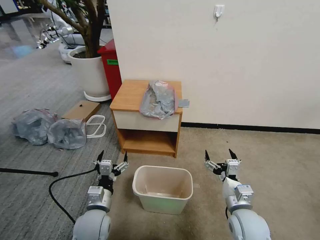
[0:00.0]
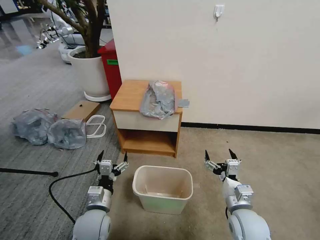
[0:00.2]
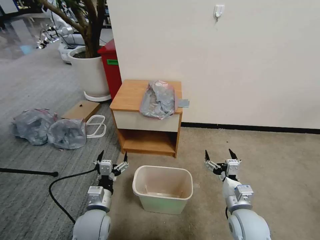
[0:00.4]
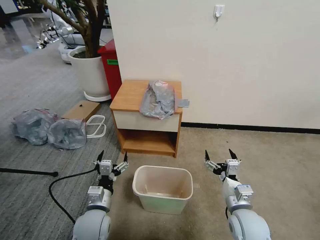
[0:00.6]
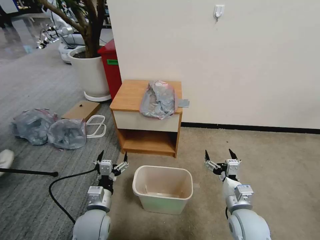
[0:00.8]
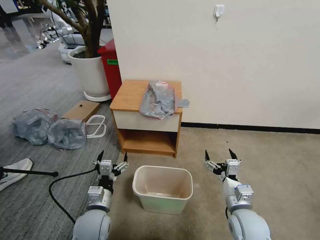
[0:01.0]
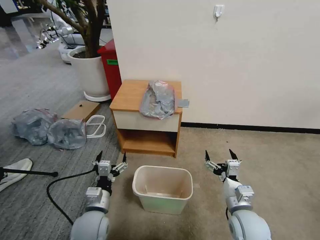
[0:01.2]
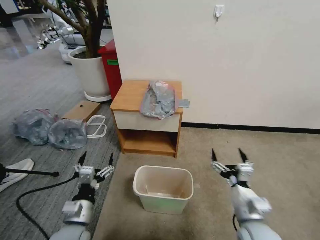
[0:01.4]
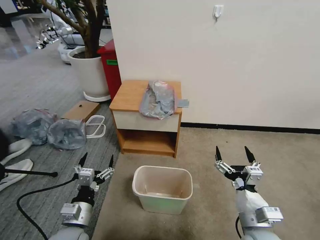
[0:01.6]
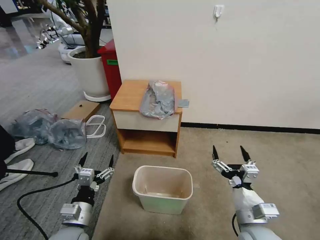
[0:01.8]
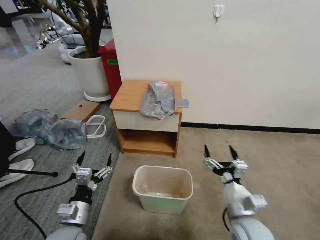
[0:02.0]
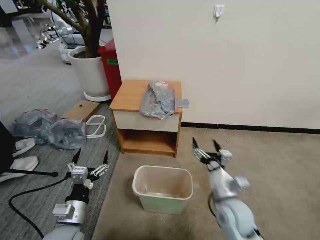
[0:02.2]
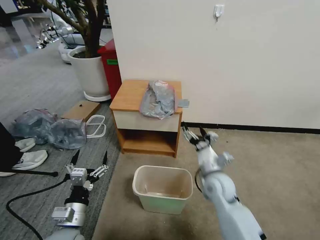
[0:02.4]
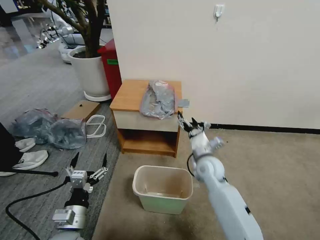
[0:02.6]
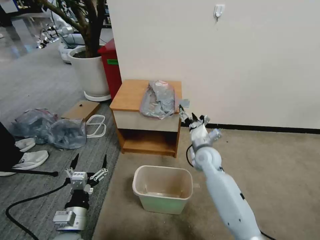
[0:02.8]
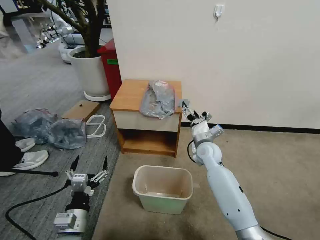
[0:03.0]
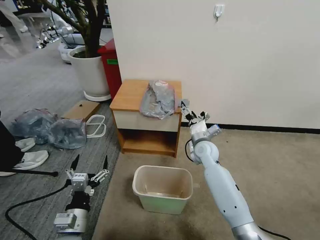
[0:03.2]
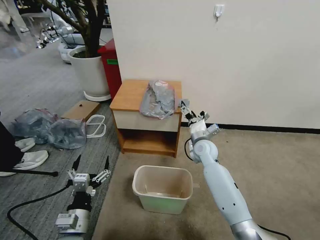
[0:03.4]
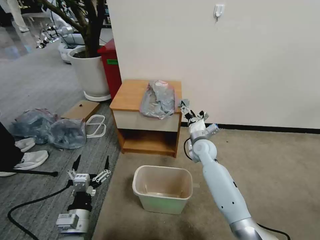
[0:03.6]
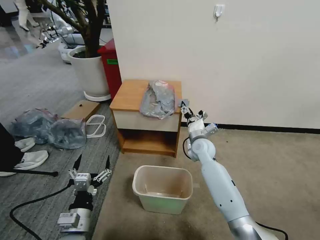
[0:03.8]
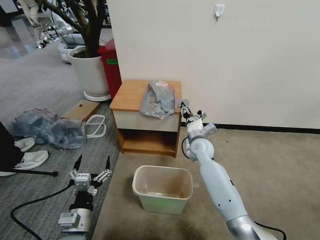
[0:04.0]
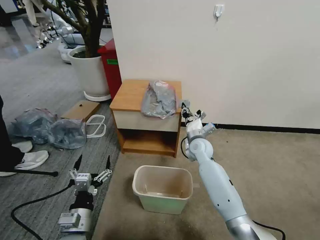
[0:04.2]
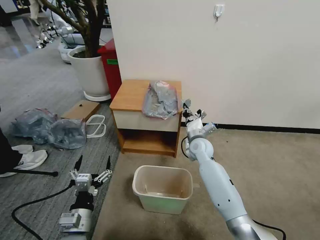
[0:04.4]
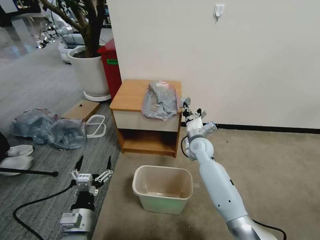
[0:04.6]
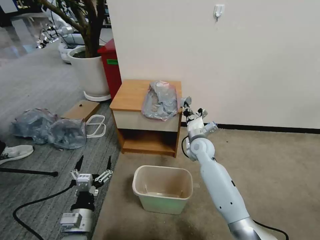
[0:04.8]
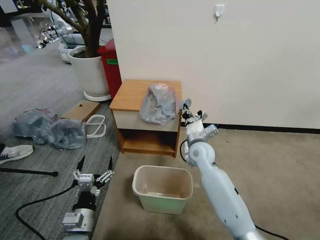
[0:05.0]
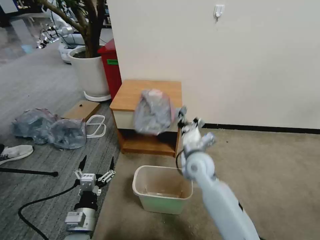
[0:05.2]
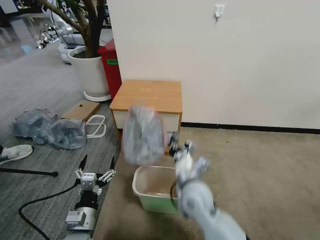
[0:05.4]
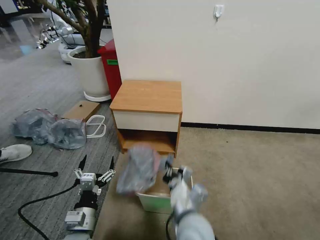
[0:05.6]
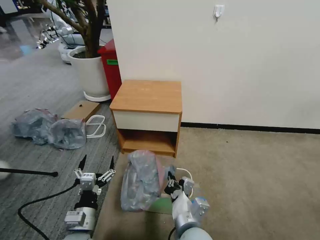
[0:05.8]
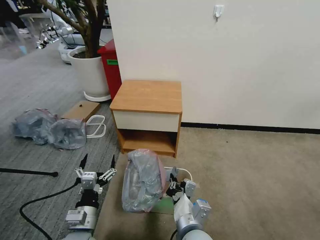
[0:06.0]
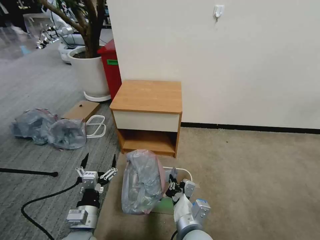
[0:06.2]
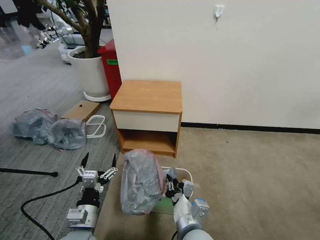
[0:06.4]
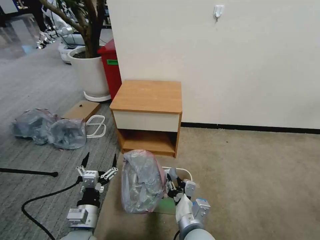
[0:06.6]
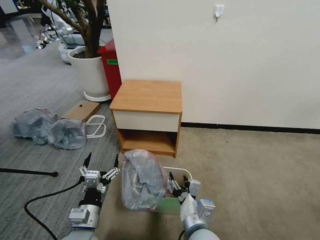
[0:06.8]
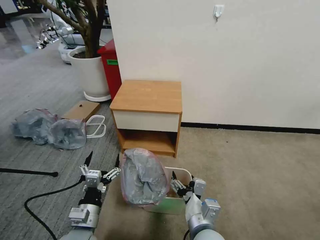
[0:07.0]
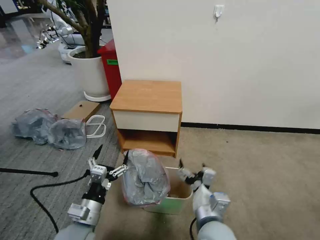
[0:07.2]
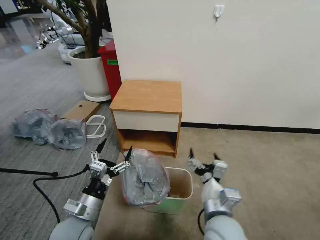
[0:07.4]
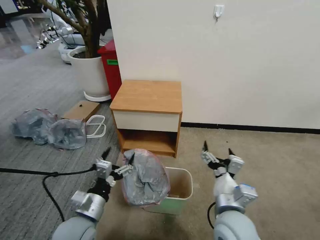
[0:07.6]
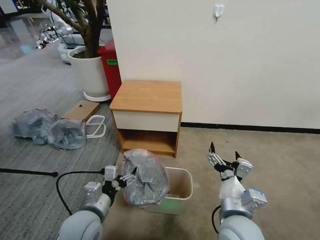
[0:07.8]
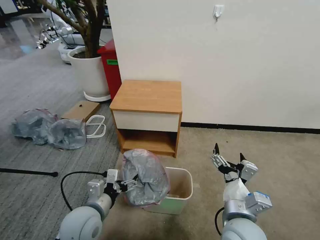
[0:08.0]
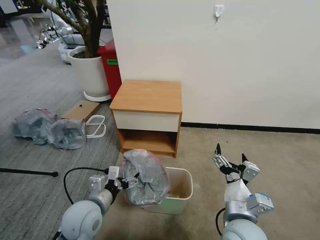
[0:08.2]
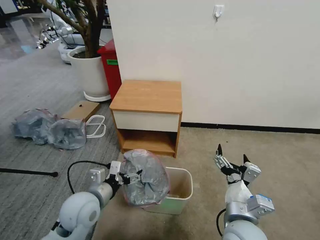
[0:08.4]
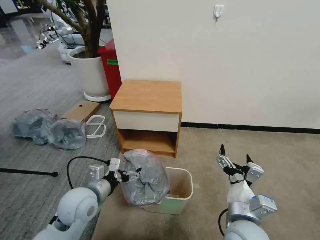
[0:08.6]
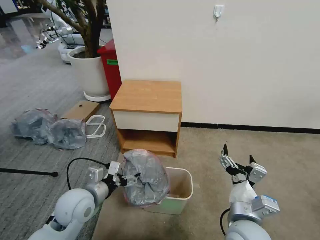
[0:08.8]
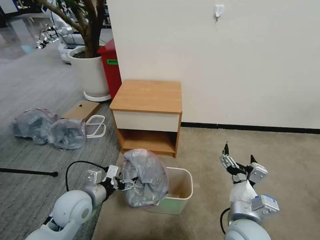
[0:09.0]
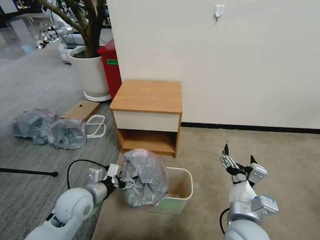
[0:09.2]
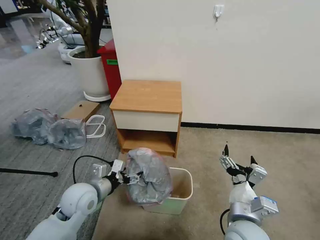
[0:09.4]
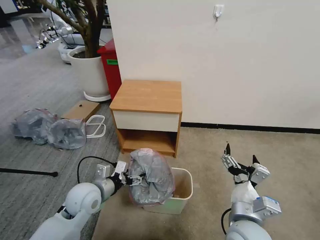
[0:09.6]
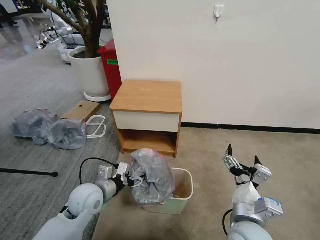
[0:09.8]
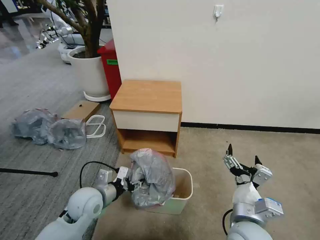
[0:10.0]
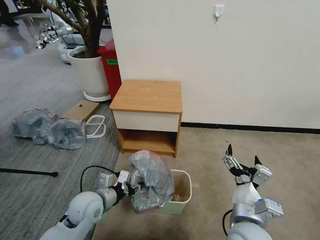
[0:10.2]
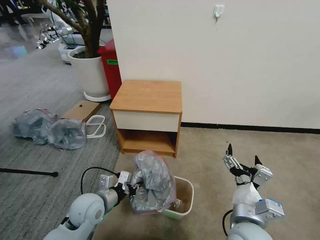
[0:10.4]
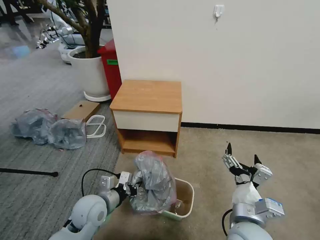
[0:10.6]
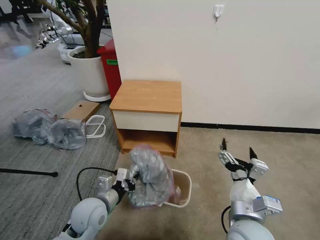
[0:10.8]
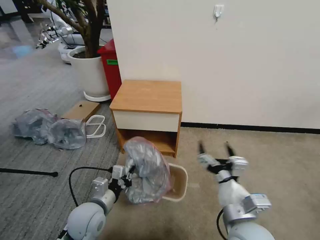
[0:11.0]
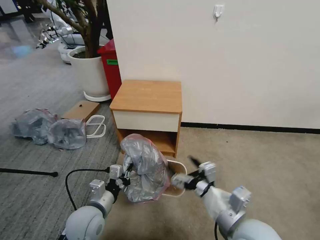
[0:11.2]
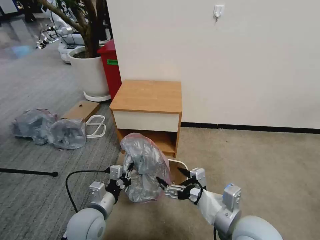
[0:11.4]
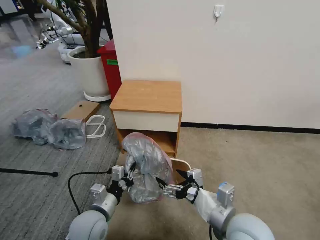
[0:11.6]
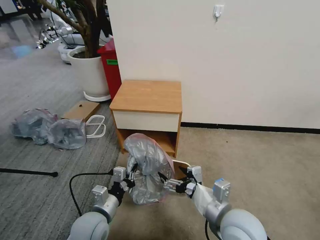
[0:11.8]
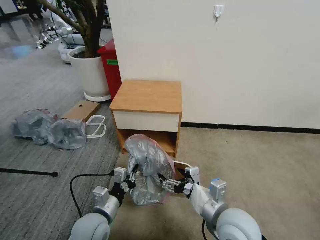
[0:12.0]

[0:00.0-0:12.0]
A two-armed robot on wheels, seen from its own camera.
Task of the whole recording: Pick up the garbage bag from the table and place it over the trash can.
0:01.6 to 0:03.0: The right gripper goes roughly 30 cm forward.
0:03.0 to 0:04.4: The right gripper closes.
0:04.4 to 0:06.0: The right gripper goes some 30 cm backward.
0:06.0 to 0:07.6: The right gripper moves to the right, approximately 10 cm, and opens its fingers.
0:07.6 to 0:09.0: The left gripper heads forward, covering about 5 cm.
0:09.0 to 0:10.4: The left gripper closes.
0:10.4 to 0:12.0: The left gripper travels backward by approximately 5 cm.

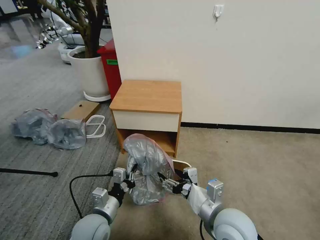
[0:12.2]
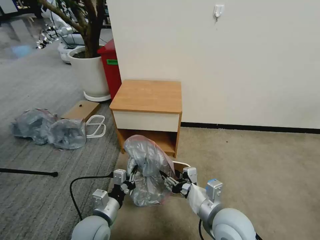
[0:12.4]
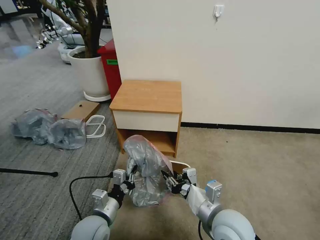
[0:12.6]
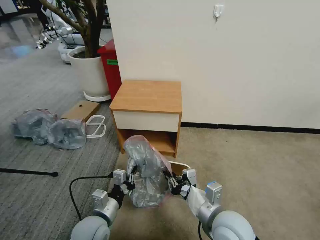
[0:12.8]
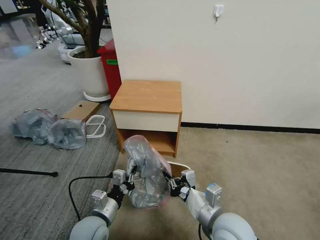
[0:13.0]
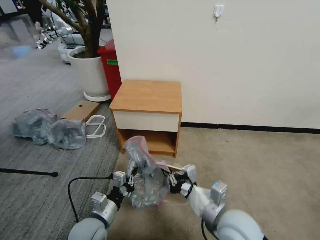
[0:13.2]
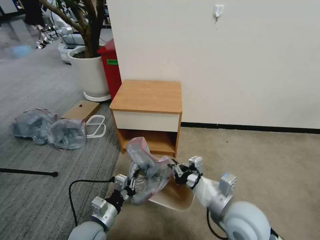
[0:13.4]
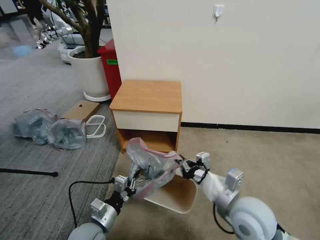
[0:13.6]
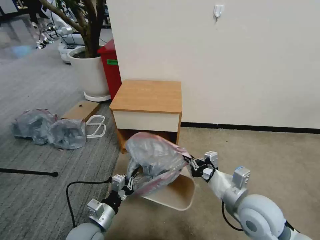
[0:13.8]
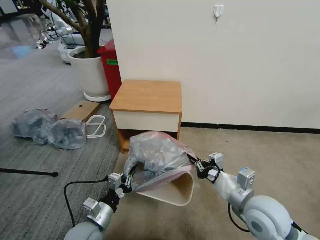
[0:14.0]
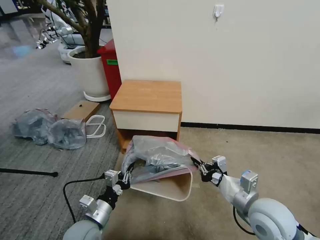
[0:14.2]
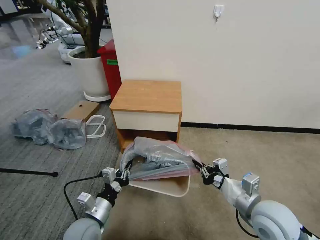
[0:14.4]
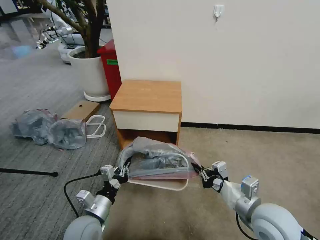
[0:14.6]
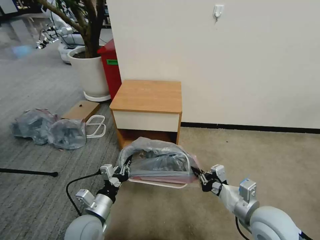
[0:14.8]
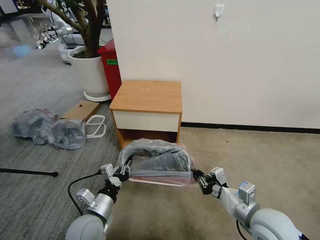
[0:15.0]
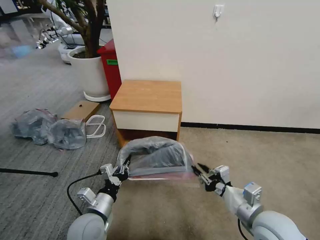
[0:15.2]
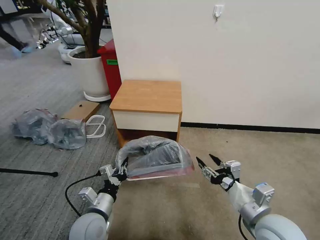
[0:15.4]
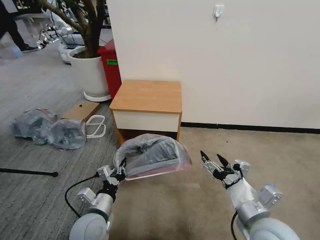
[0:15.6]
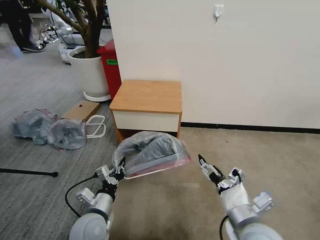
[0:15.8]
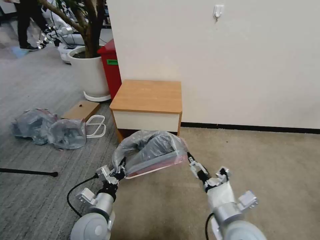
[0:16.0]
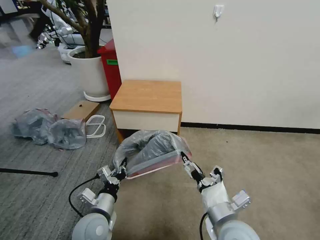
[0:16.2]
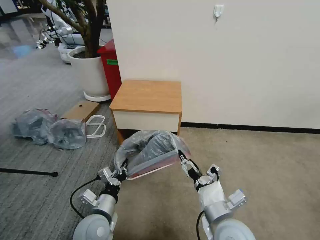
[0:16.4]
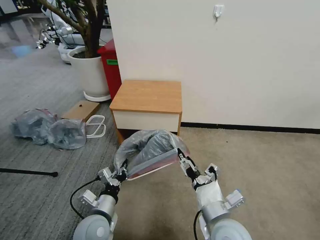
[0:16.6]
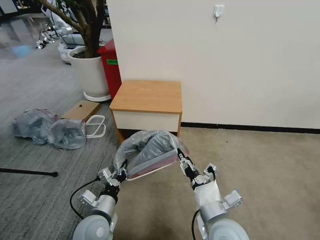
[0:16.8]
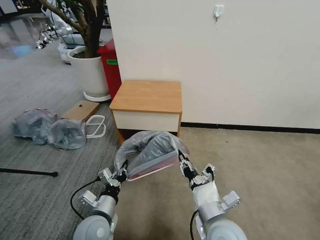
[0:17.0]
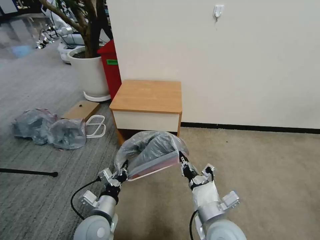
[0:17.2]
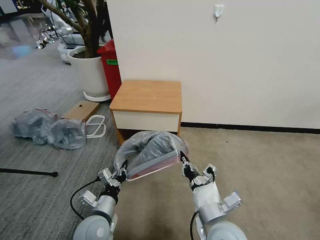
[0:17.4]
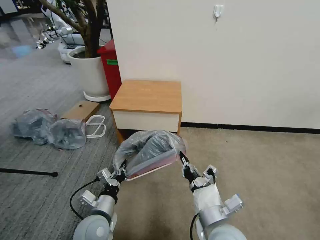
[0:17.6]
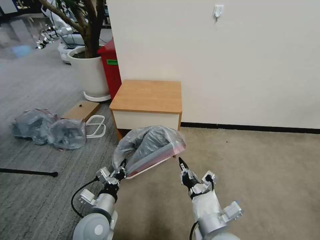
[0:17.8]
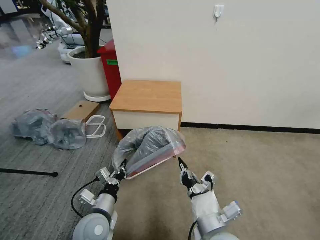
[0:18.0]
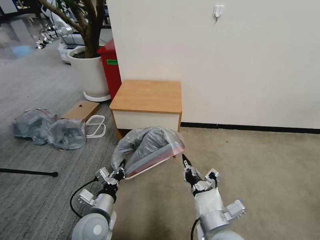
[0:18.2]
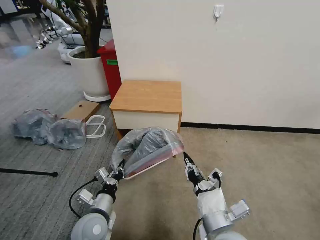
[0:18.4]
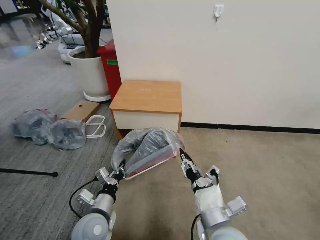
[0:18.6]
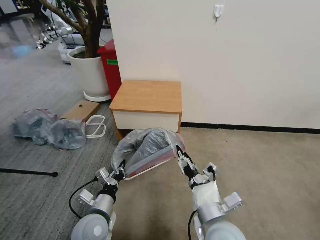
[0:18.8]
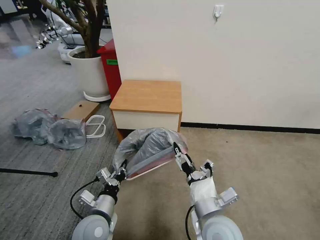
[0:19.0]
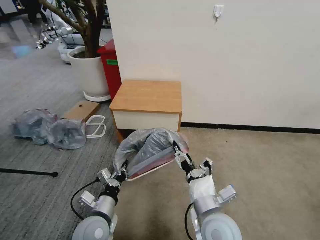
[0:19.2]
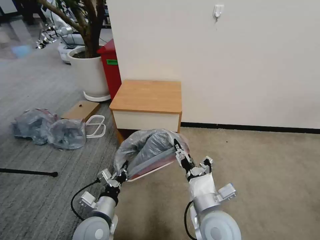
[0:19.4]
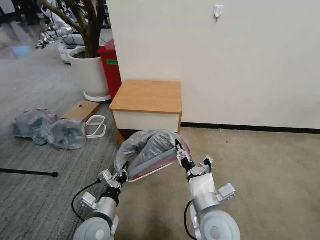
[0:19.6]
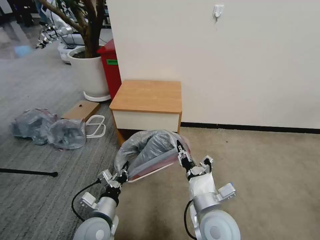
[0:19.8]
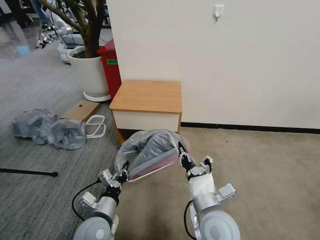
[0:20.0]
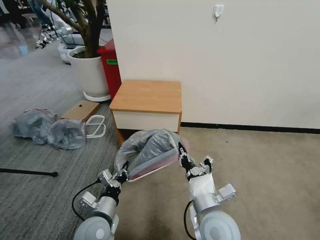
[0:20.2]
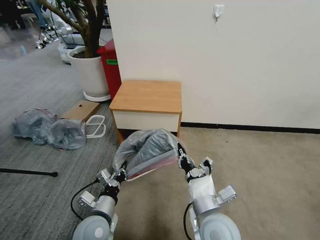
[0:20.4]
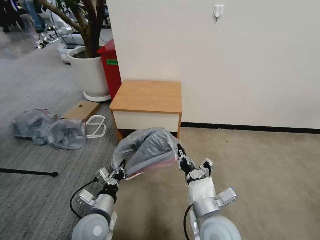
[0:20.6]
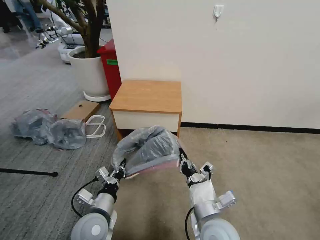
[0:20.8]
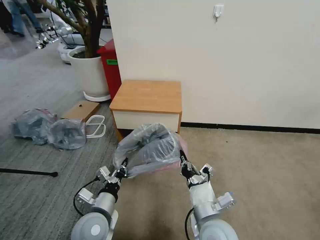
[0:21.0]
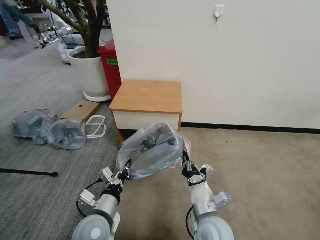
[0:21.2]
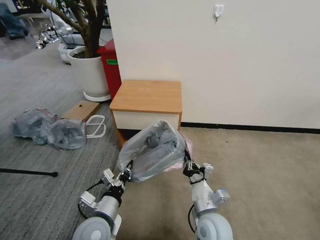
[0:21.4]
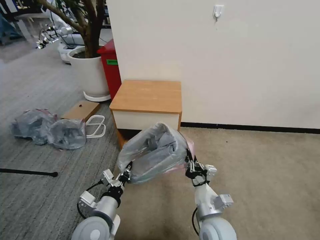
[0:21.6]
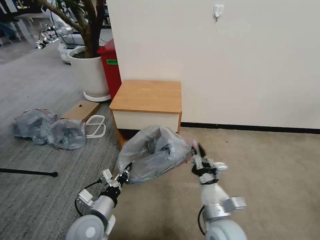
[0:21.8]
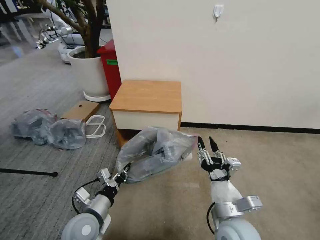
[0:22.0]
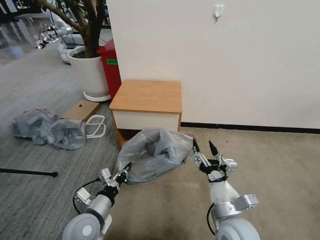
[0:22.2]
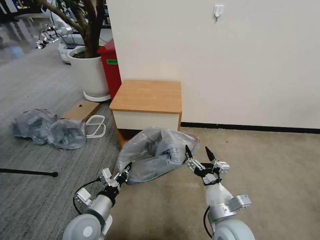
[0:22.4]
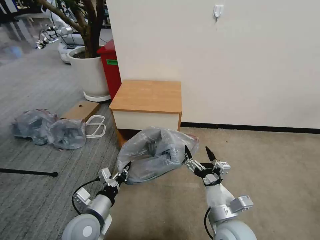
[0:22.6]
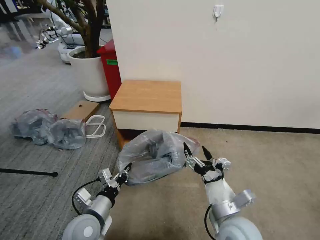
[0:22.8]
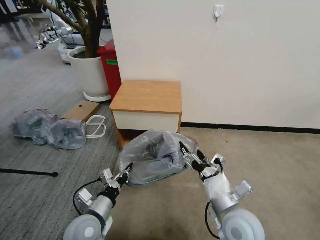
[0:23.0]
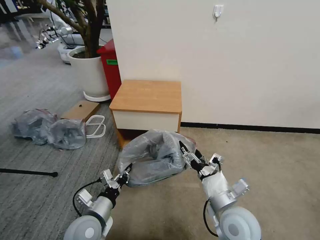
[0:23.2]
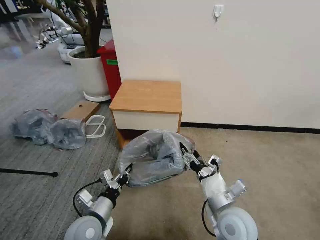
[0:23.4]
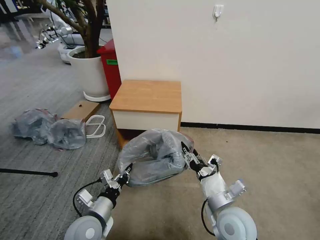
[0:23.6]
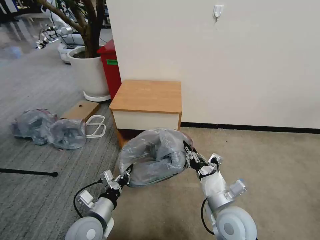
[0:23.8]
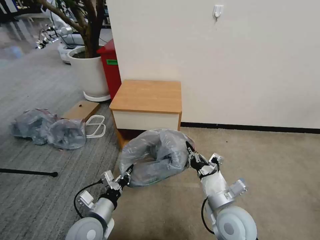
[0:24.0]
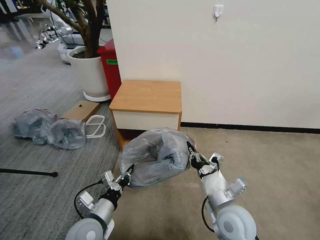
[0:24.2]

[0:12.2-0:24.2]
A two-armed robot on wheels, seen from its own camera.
Task of the whole recording: Pick up the garbage bag from the table and place it over the trash can.
0:12.2 to 0:13.8: The right gripper is displaced to the right by roughly 5 cm, and closes its fingers.
0:13.8 to 0:15.2: The right gripper moves about 5 cm.
0:15.2 to 0:16.6: The right gripper goes roughly 10 cm to the left.
0:16.6 to 0:18.2: The right gripper closes its fingers.
0:18.2 to 0:19.8: The right gripper opens, then closes once more.
0:19.8 to 0:21.2: The grippers move only a little.
0:21.2 to 0:22.6: The right gripper travels to the right by roughly 5 cm, goes downward and returns, about 10 cm each way, and opens.
0:22.6 to 0:24.2: The right gripper closes.
